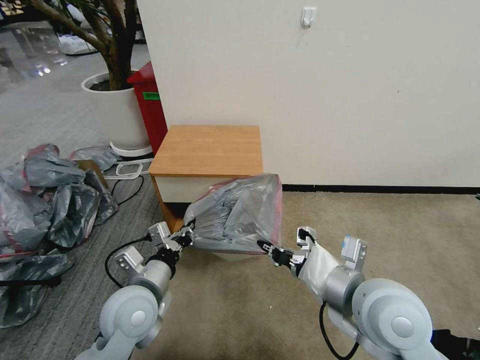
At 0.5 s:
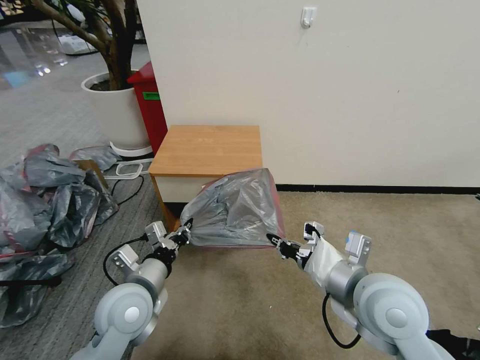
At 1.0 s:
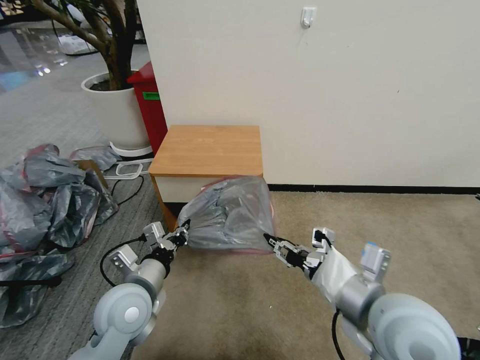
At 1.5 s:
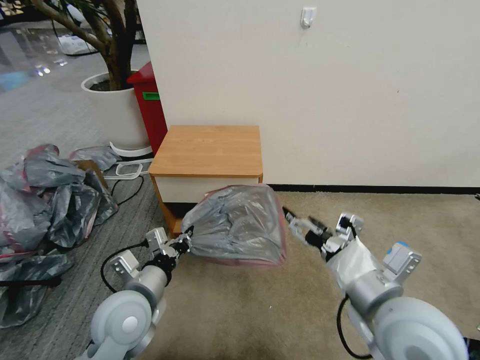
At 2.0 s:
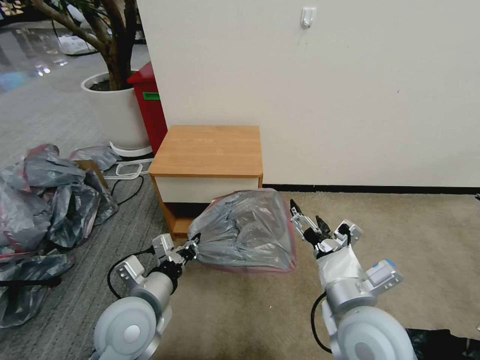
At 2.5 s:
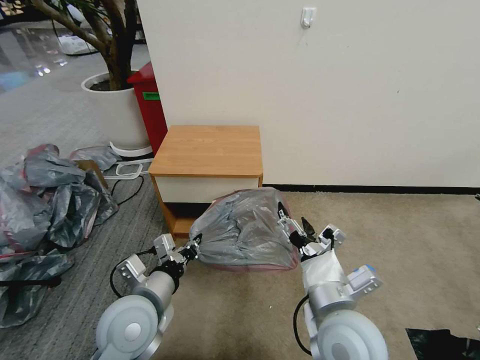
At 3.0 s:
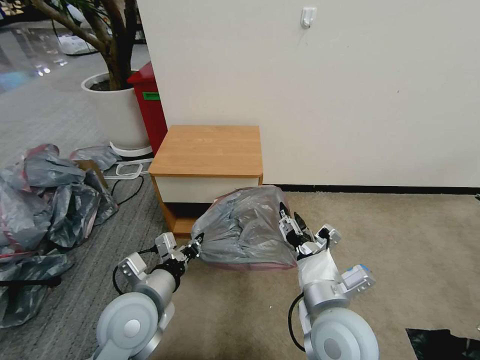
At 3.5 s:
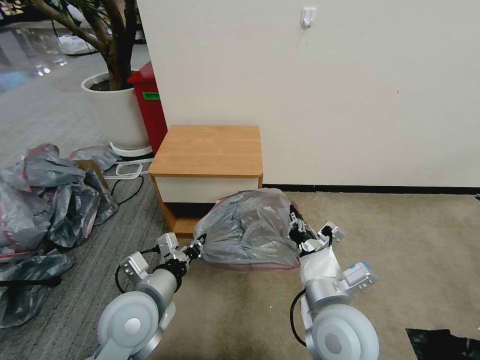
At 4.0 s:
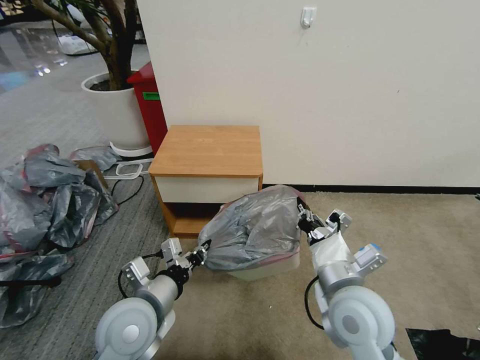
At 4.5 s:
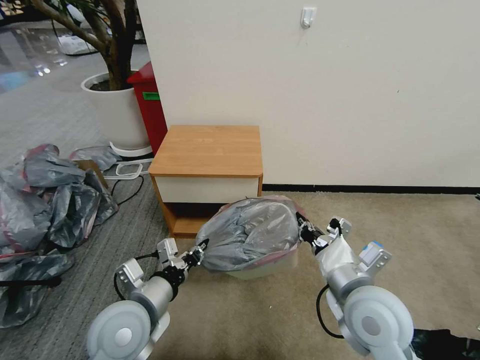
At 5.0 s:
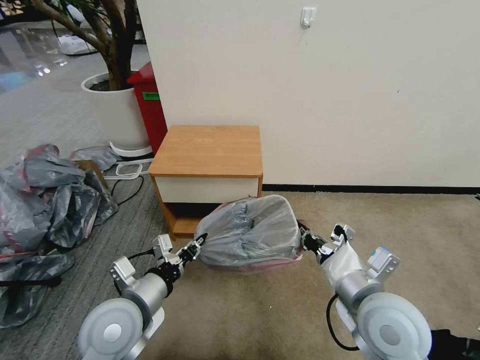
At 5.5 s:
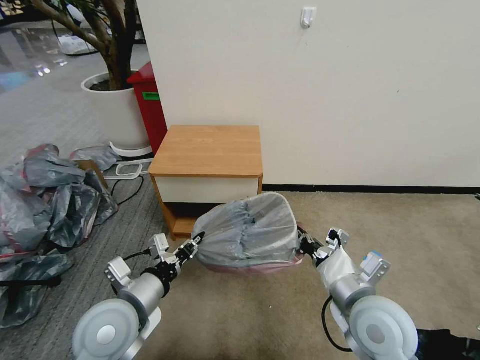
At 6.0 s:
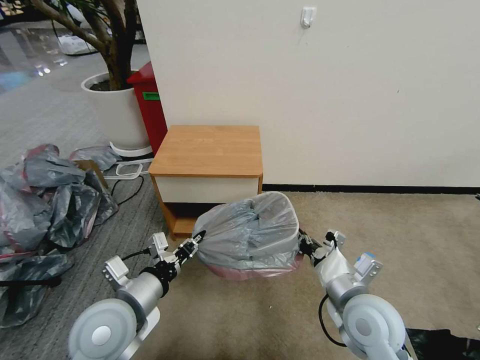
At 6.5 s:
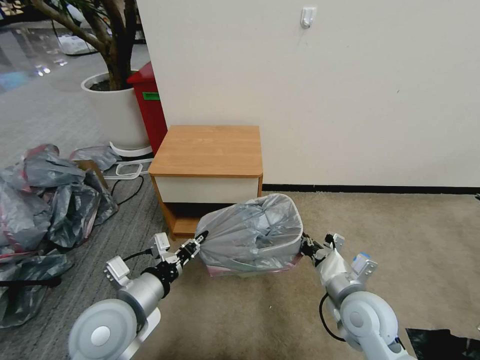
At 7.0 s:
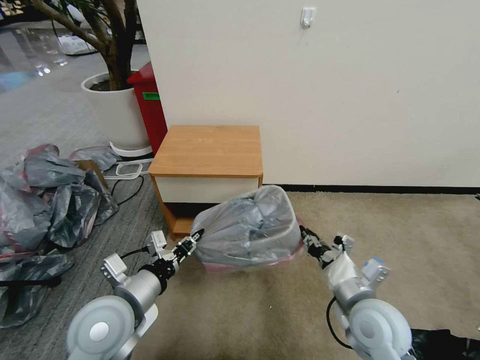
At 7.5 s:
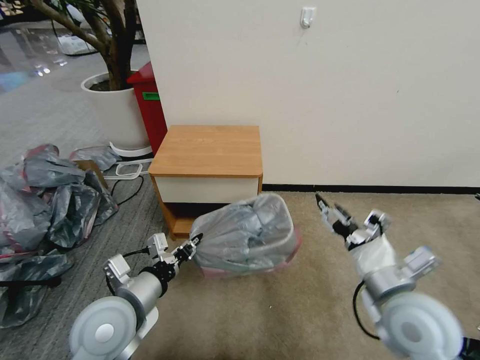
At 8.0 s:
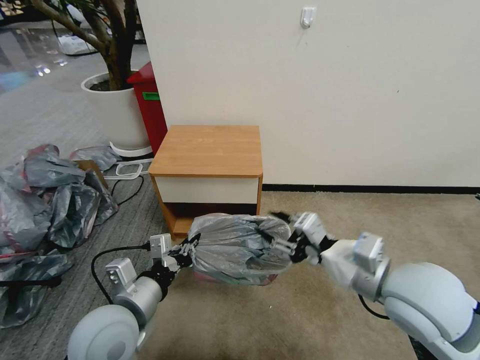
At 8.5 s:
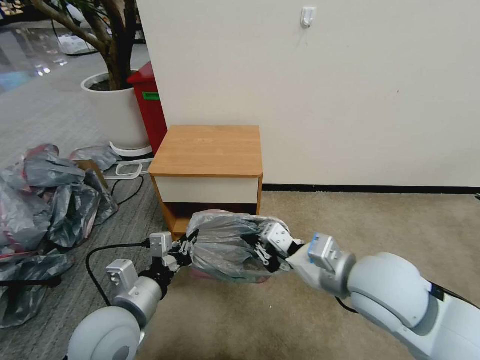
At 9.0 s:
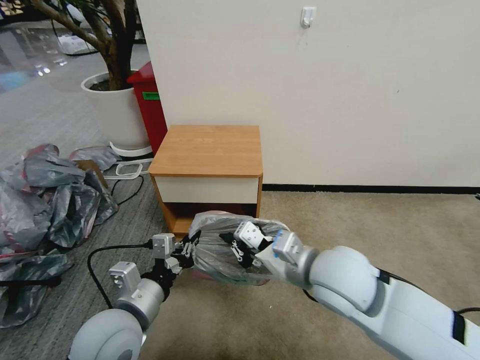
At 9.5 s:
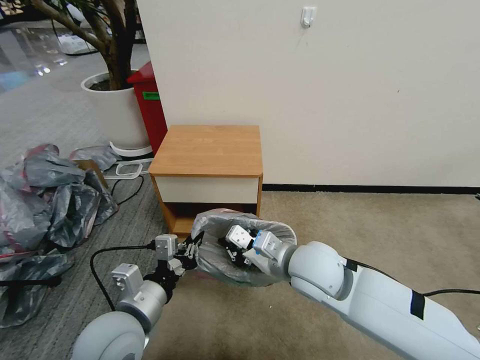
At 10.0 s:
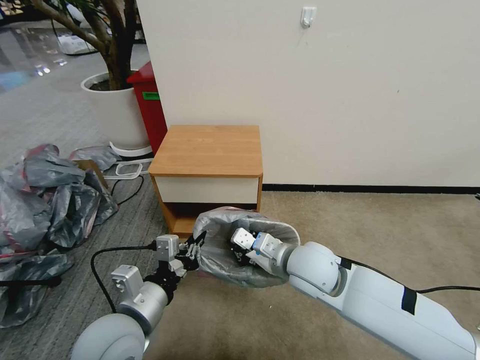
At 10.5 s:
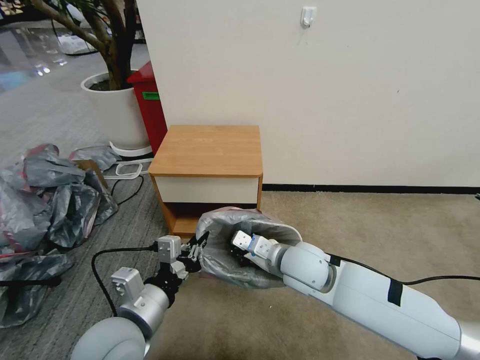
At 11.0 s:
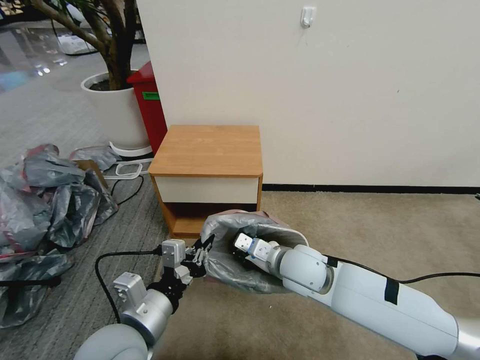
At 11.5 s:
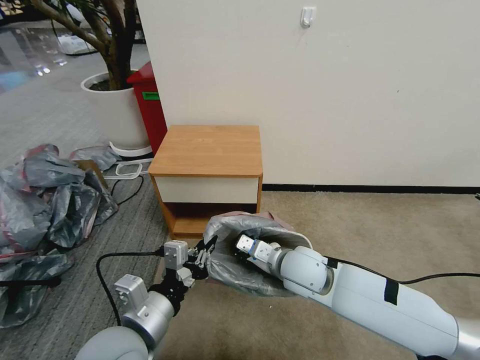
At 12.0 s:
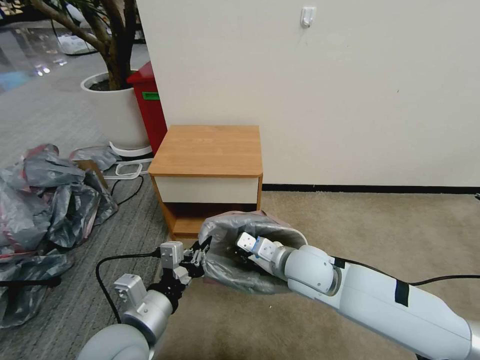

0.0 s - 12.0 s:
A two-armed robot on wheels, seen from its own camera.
Task of the whole recording: Pick up the garbage bag from the table and place it over the trash can.
0.0 s - 2.0 s: The right gripper opens.
2.0 s - 4.0 s: The right gripper closes.
4.0 s - 6.0 s: The right gripper changes place by approximately 5 cm.
6.0 s - 8.0 s: The right gripper shifts approximately 10 cm upward, and opens its fingers.
8.0 s - 10.0 s: The right gripper travels to the left, downward and forward by some 15 cm, and closes.
10.0 s - 12.0 s: The grippers stay close to where they were, moving slightly.

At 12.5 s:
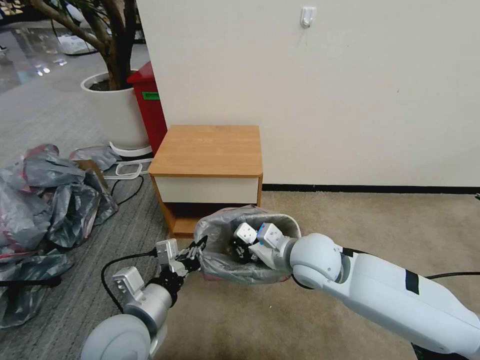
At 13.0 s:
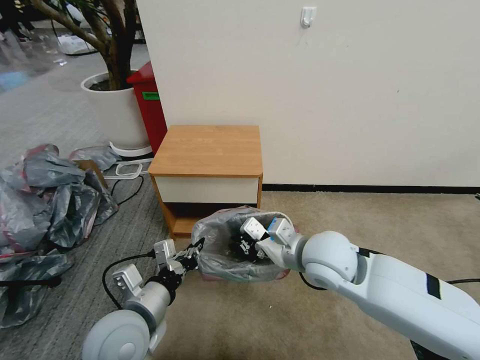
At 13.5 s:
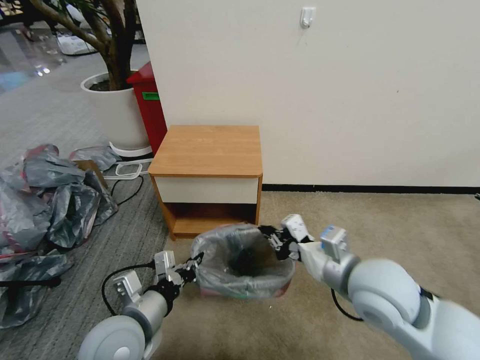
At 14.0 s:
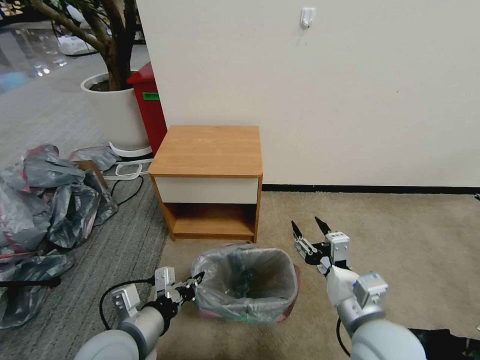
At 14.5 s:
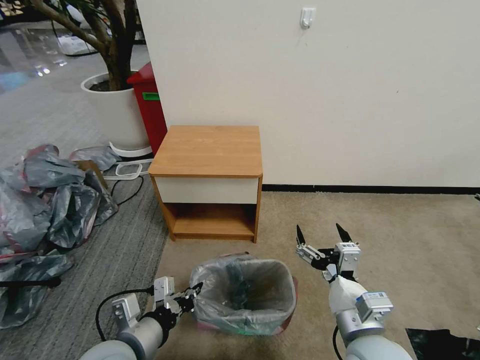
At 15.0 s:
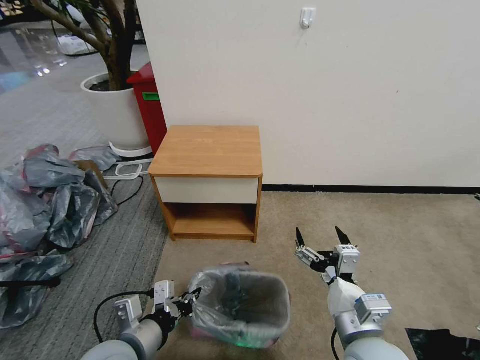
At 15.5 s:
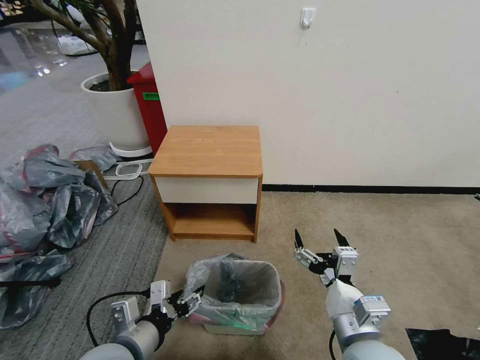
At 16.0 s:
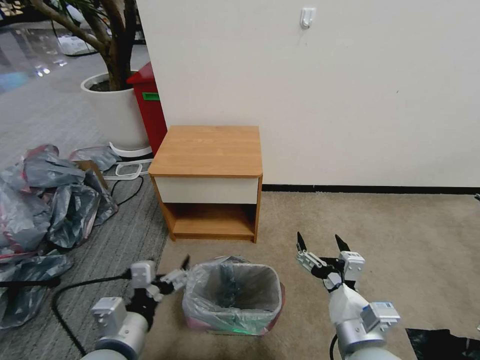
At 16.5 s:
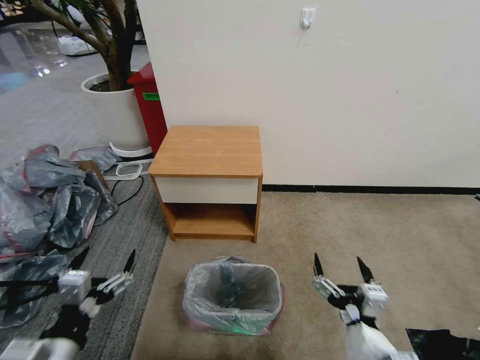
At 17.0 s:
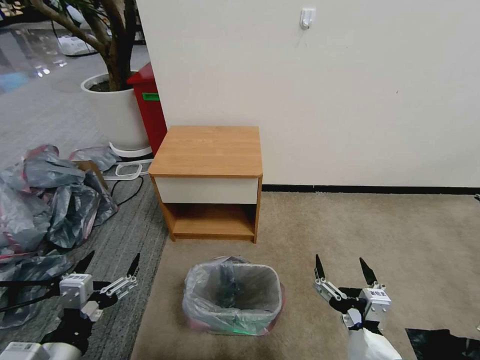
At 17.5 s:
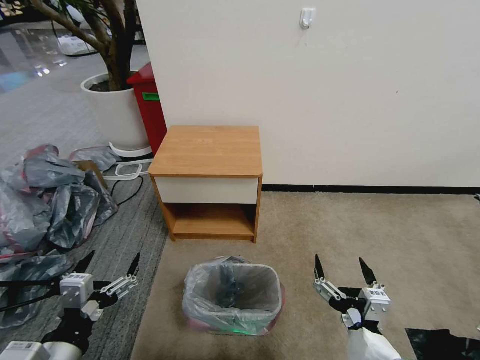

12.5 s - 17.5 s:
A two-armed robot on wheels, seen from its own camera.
Task of the whole recording: Pick up the garbage bag from the table and place it over the trash can.
12.5 s - 15.0 s: The right gripper heads backward, covering approximately 15 cm, and opens up. Meanwhile the left gripper changes place by some 5 cm.
15.0 s - 17.5 s: The left gripper travels to the left and backward by approximately 10 cm, and opens its fingers. The right gripper shifts some 10 cm backward.

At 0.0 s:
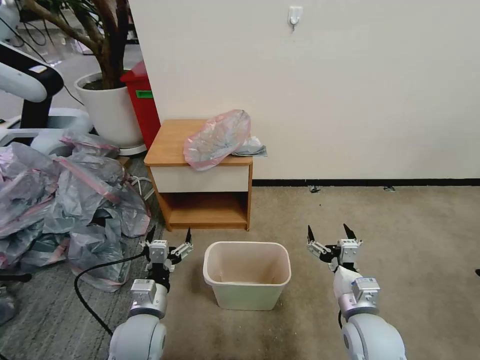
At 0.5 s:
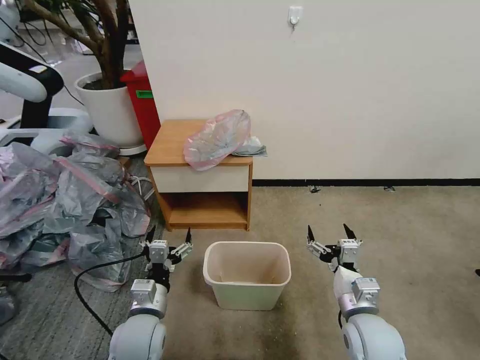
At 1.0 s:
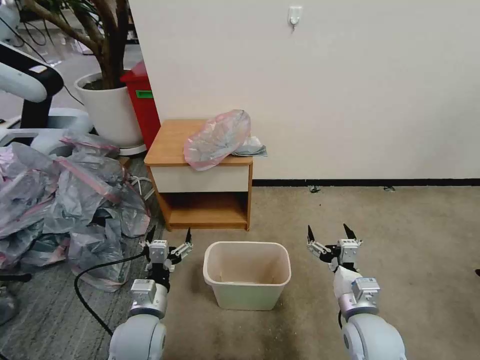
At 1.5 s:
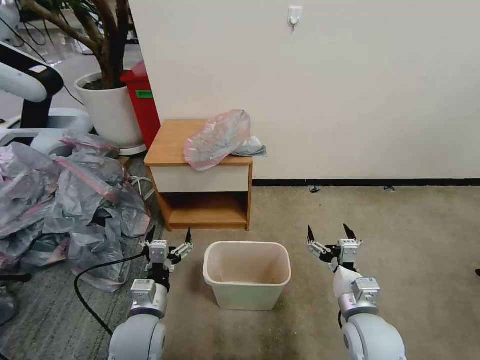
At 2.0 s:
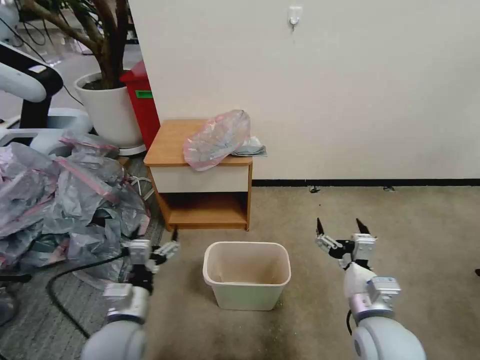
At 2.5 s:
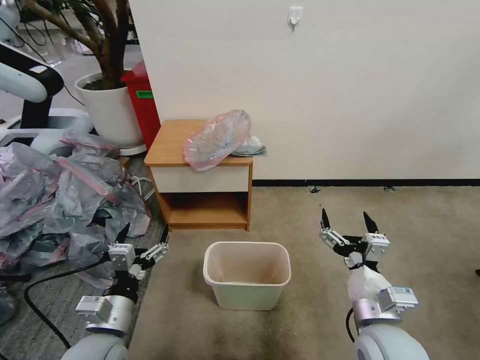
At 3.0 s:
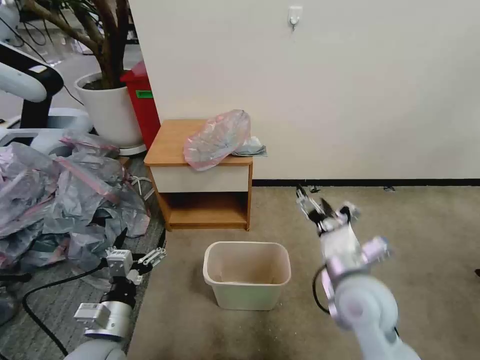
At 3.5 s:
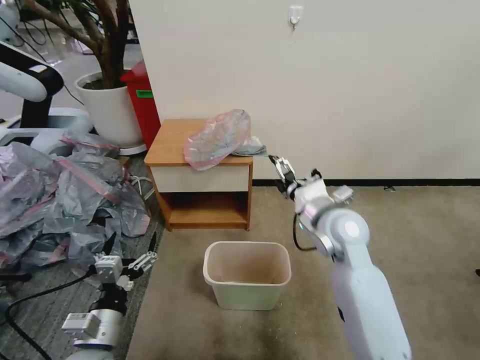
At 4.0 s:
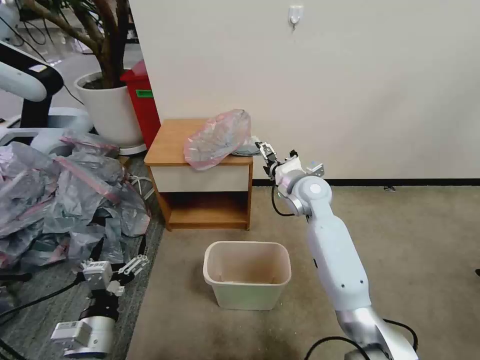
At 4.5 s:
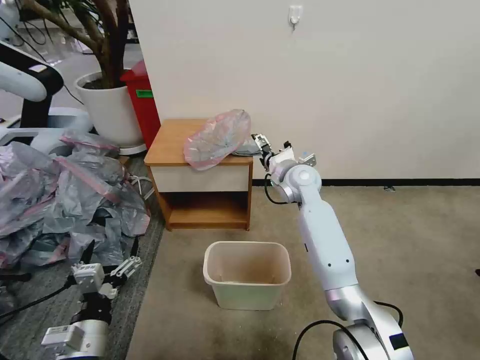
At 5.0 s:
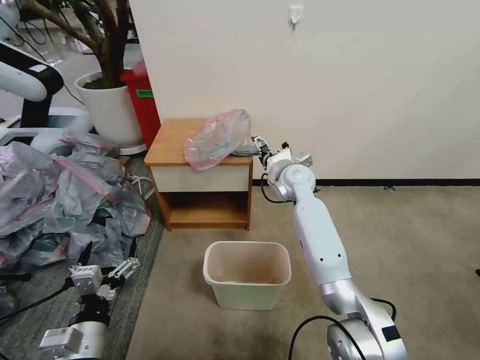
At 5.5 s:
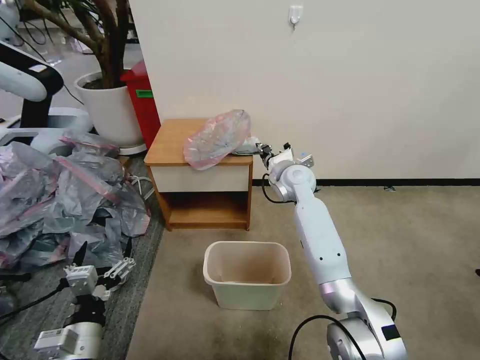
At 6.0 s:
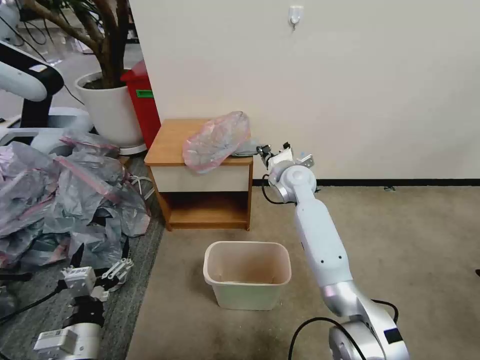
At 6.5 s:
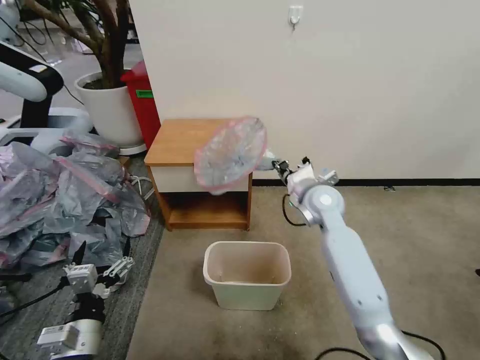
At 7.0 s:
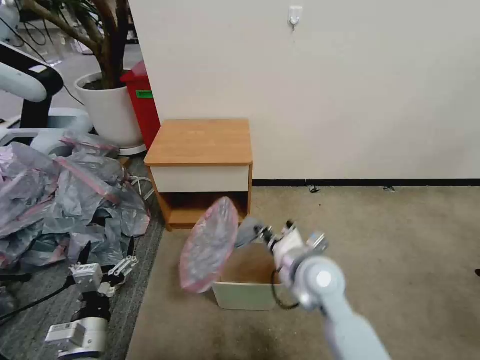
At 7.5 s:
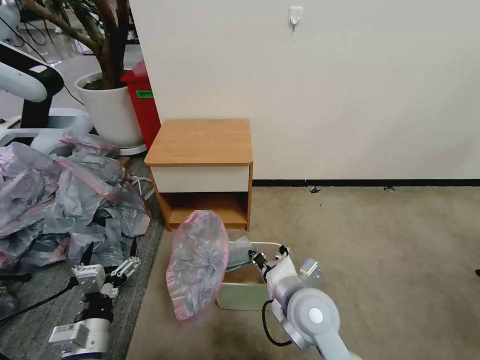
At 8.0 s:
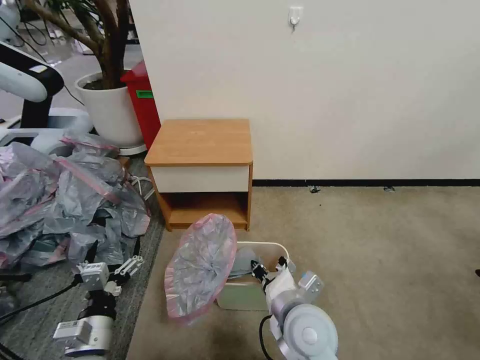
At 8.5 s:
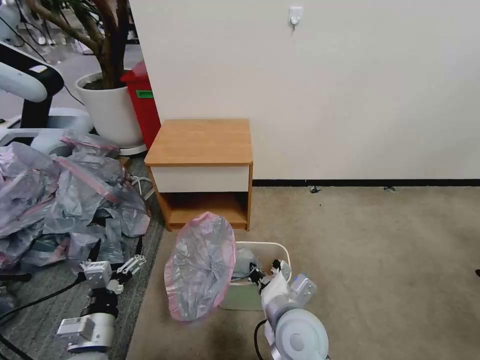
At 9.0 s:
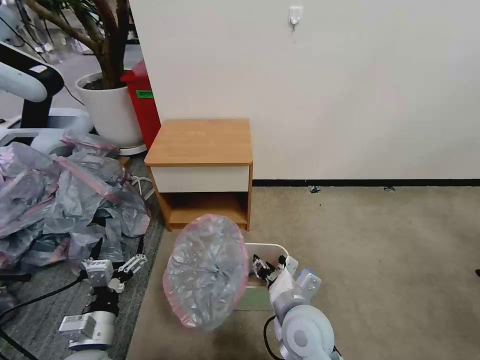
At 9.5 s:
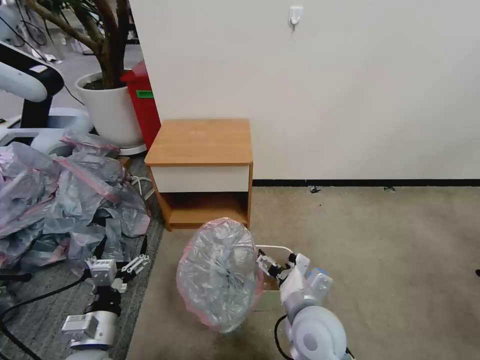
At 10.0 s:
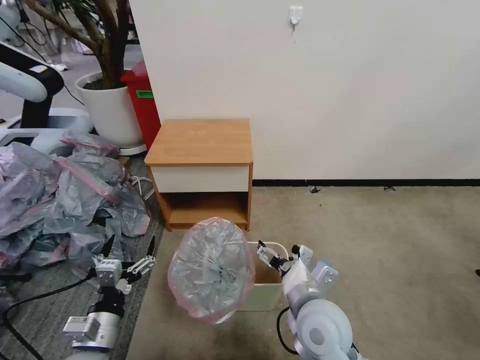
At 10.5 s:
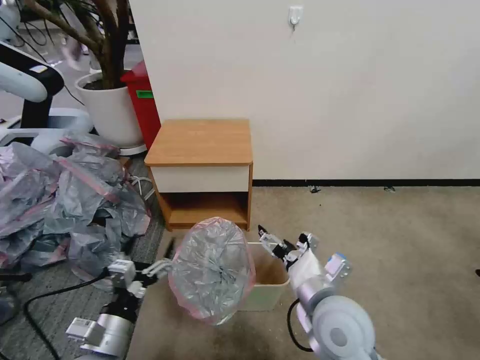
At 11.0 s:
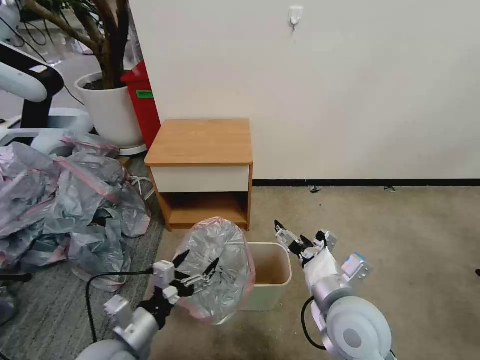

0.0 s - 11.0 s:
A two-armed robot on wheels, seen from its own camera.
Task of the whole recording: Pick up the garbage bag from the table and place it over the trash can.
2.0 s - 3.5 s: The left gripper shifts by about 5 cm. Meanwhile the right gripper goes about 20 cm forward and upward.
3.5 s - 5.5 s: The right gripper is displaced forward by approximately 15 cm, and closes its fingers.
5.5 s - 7.5 s: The right gripper moves backward, about 30 cm.
7.5 s - 9.0 s: The right gripper opens up.
9.0 s - 11.0 s: The right gripper goes some 10 cm upward and to the right, and opens, while the left gripper moves about 5 cm.
